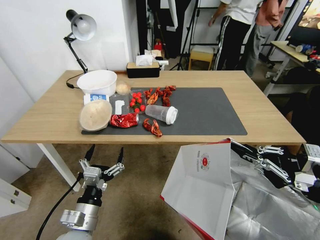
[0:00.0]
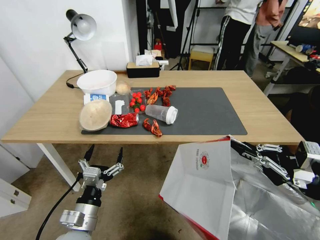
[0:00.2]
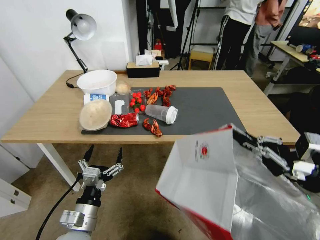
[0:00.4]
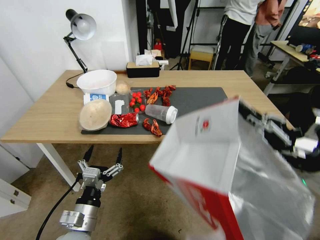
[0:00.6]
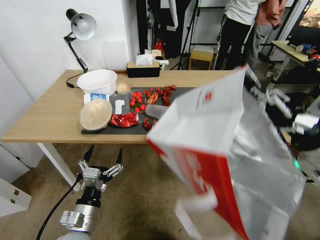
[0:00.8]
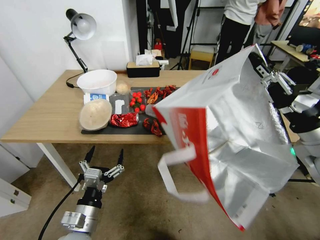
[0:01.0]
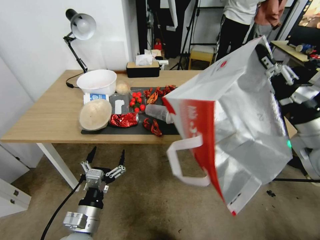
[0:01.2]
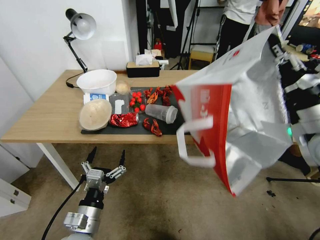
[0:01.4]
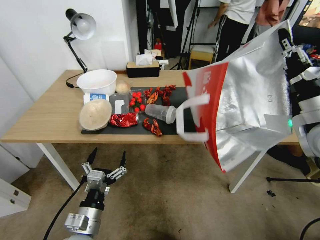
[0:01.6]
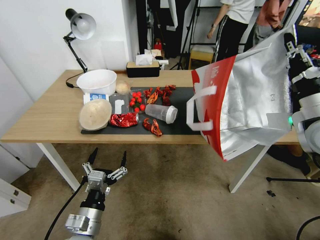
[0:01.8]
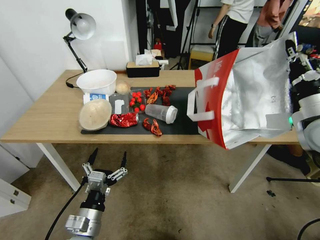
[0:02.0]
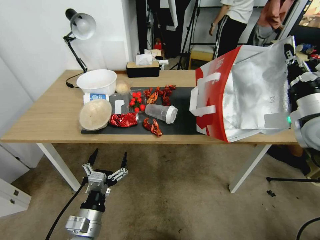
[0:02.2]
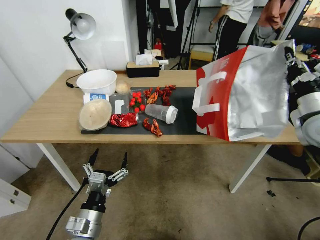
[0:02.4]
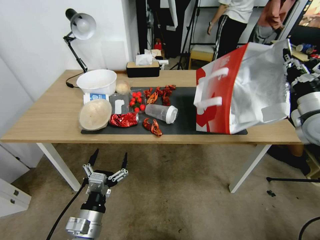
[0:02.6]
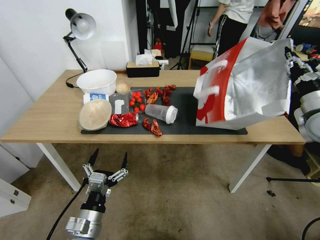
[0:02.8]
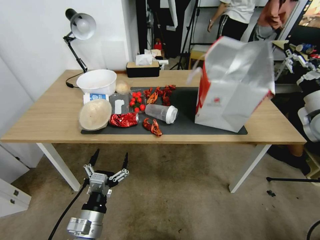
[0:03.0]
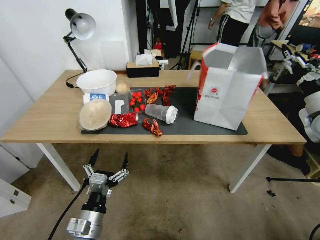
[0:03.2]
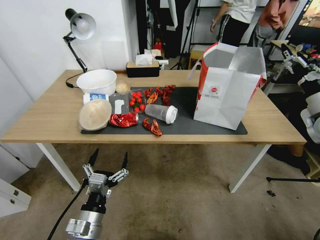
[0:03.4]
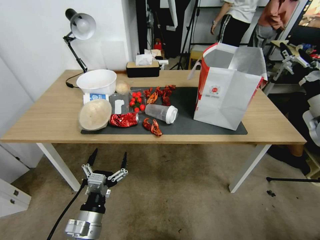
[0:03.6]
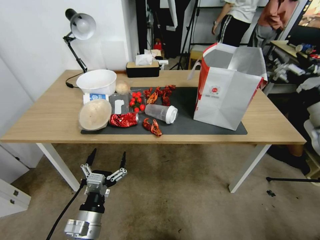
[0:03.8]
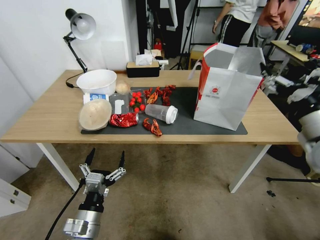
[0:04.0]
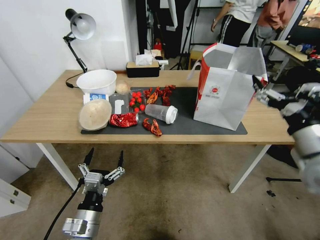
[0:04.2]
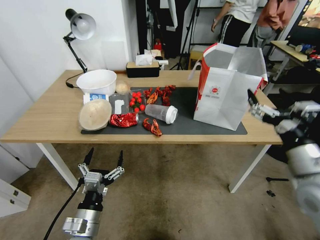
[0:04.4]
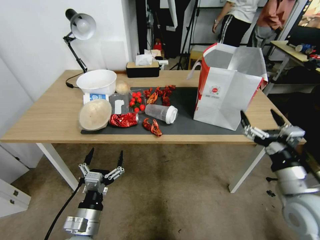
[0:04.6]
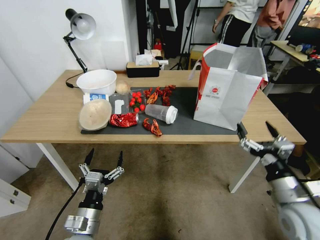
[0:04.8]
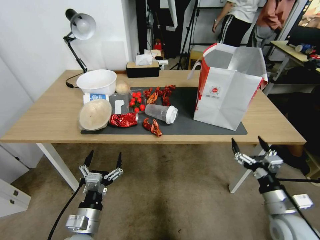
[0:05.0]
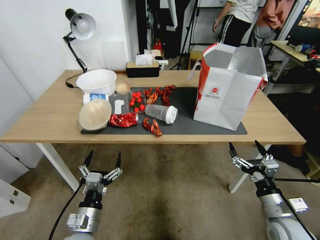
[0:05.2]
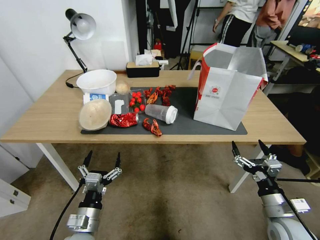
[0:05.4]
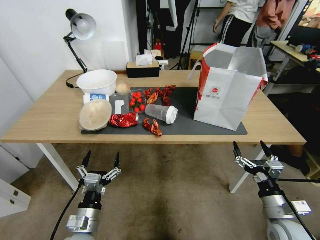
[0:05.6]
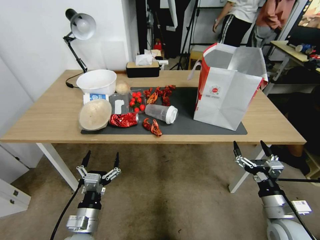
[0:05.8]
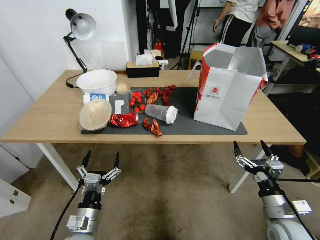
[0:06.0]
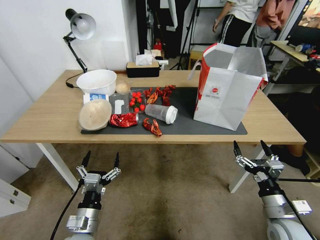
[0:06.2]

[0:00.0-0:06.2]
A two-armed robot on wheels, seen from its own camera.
Task of the whole recording: Pick up the food delivery bag from the floor and place it on the table.
0.0 to 1.6 s: The right gripper heads forward and upward, covering about 15 cm.
1.6 to 3.2 s: The right gripper is displaced to the right and forward by roughly 10 cm, and opens its fingers.
3.2 to 4.6 s: The right gripper travels backward, to the left and downward by some 25 cm.
4.6 to 6.2 s: The right gripper travels downward by about 15 cm.

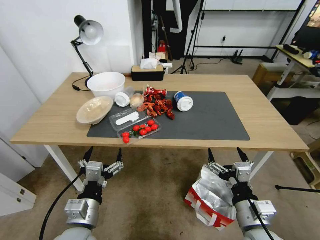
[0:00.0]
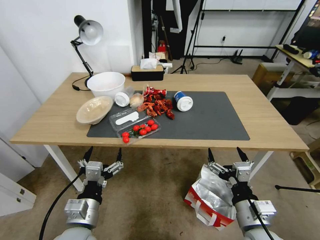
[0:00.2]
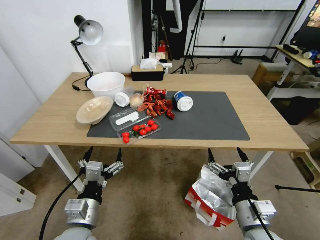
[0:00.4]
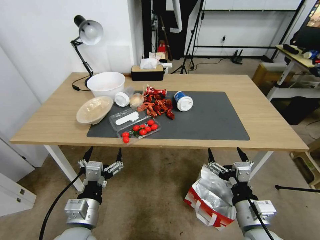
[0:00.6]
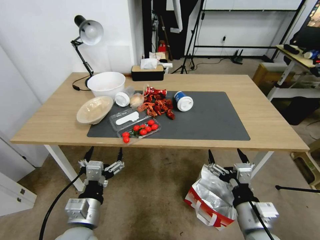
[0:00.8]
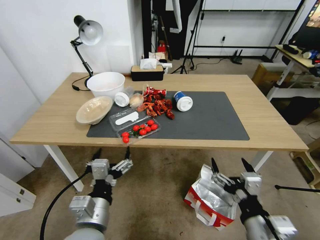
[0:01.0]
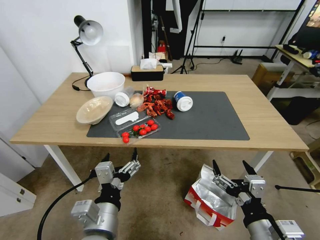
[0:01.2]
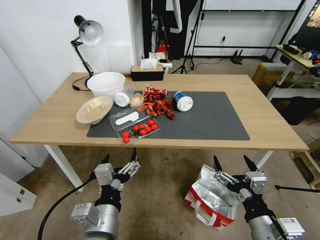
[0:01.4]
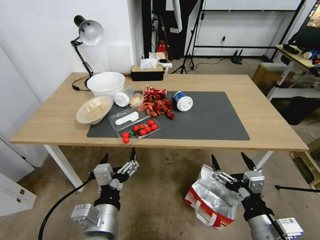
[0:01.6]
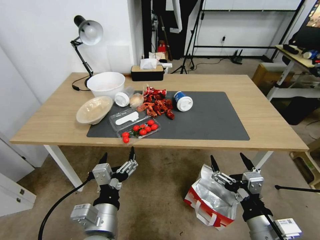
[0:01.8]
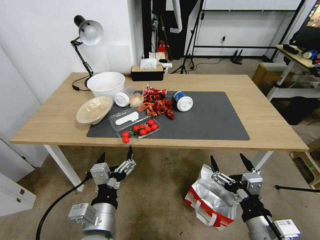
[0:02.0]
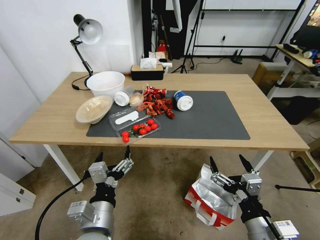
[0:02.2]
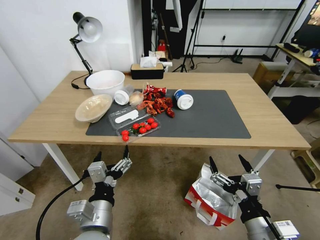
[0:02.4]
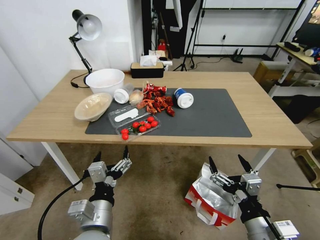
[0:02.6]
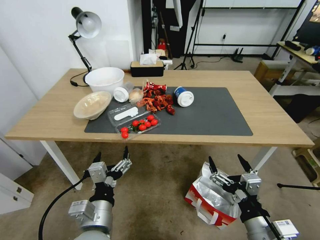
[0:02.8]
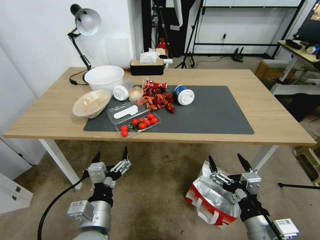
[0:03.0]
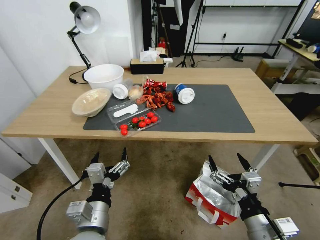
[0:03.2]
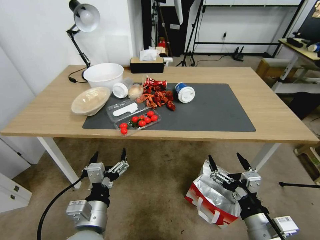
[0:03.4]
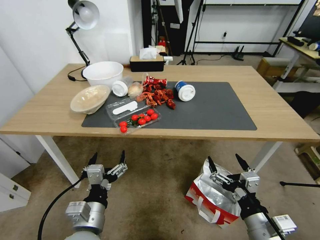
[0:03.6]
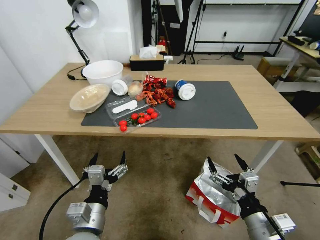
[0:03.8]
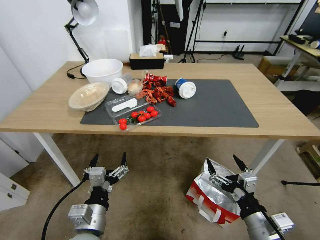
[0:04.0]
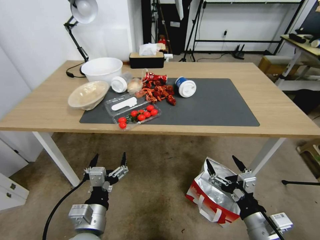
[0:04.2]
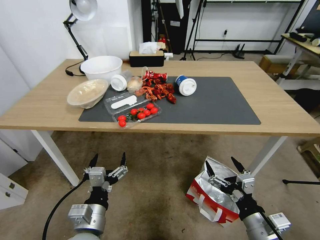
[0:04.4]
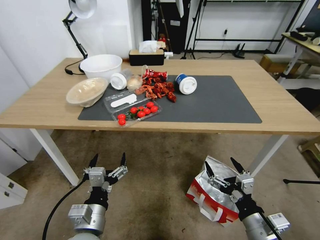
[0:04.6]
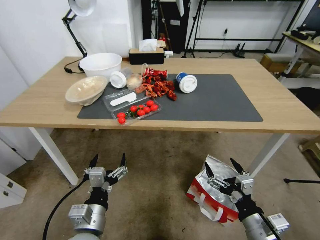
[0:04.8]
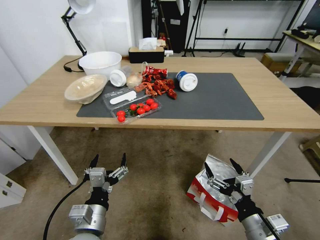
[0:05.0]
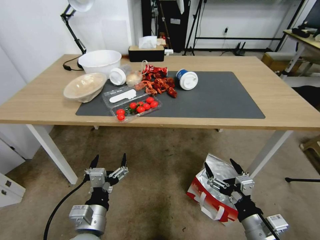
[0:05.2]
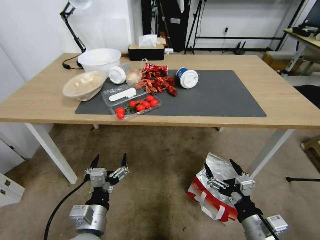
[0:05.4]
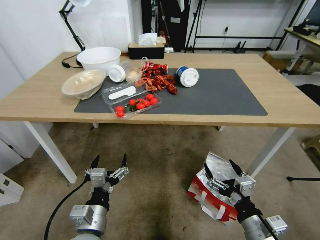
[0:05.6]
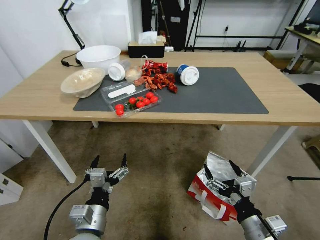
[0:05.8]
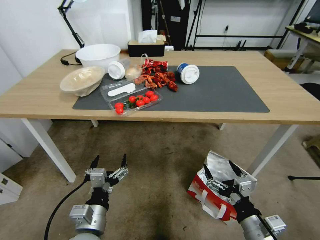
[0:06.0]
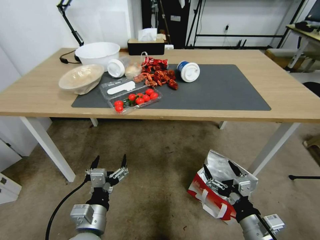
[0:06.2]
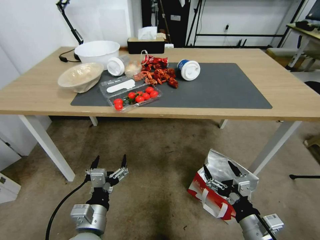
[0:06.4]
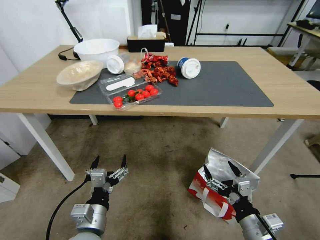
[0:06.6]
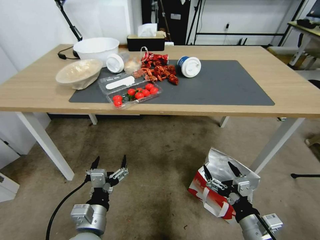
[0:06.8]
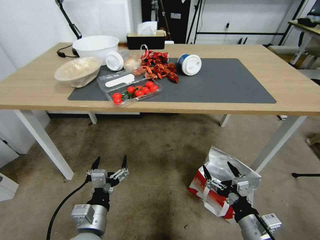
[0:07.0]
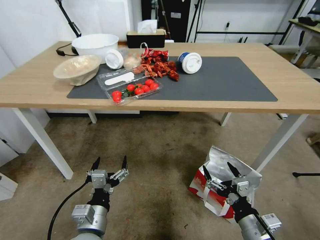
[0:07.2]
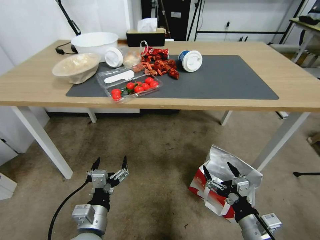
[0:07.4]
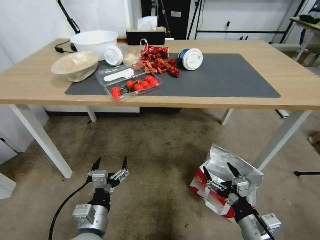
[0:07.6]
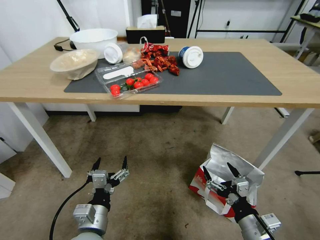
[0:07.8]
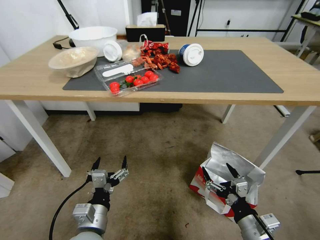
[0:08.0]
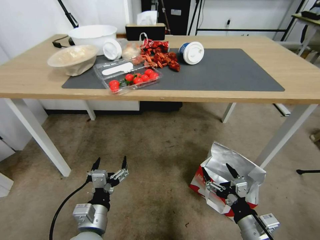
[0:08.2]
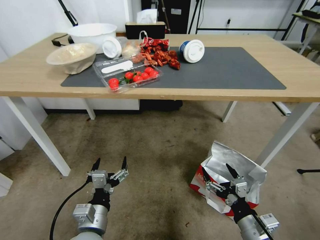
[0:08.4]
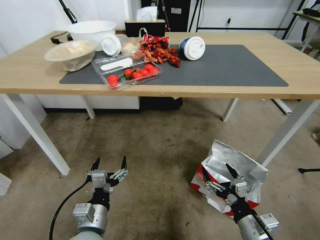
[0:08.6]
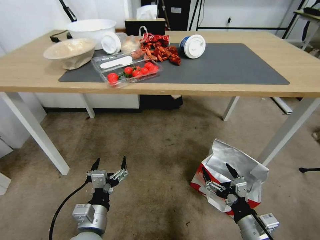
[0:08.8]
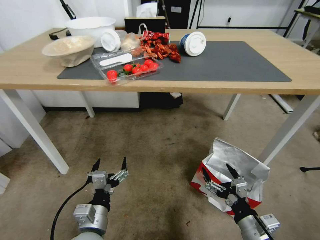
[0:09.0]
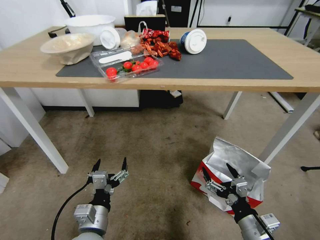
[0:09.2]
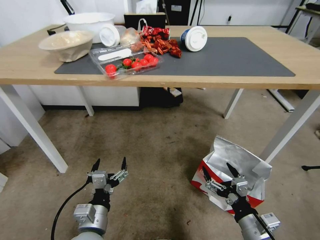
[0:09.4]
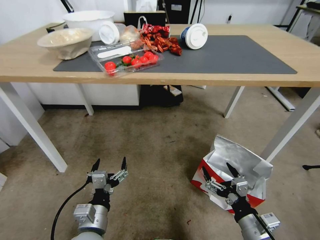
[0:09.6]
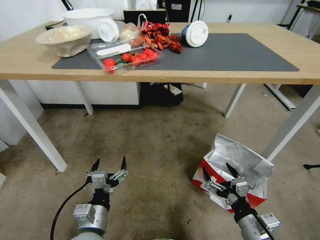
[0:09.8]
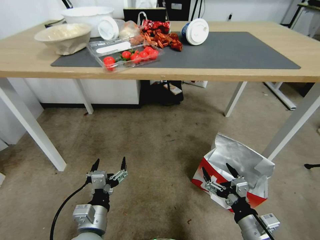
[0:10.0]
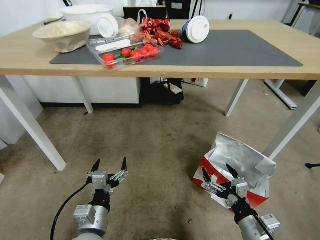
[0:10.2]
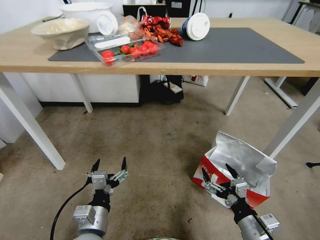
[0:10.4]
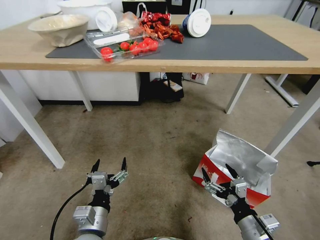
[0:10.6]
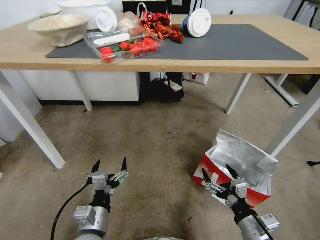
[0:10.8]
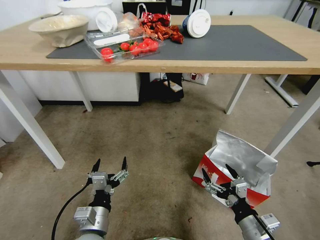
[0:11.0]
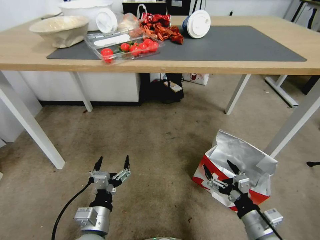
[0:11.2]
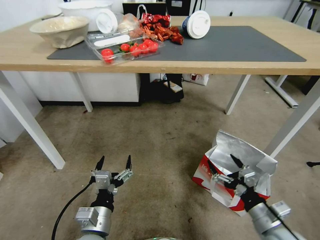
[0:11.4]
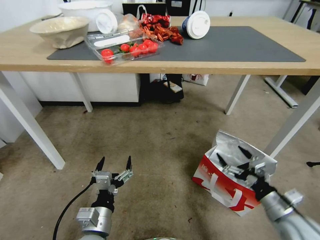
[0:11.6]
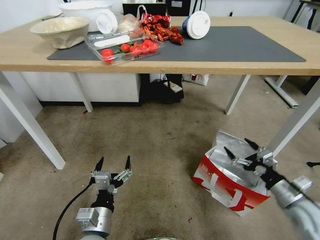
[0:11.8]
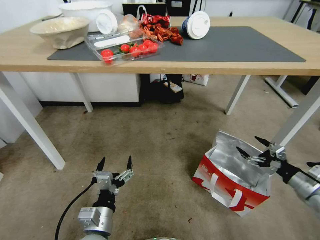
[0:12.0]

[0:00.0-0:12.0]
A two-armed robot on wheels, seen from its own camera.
Task of the whole recording: Pick up the food delivery bag from the floor and place it on the table.
10.4 to 12.0 s: The right gripper shifts approximately 25 cm to the right and forward.

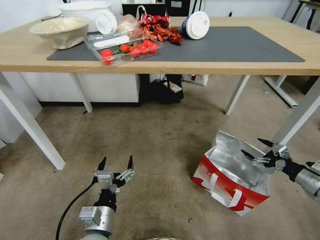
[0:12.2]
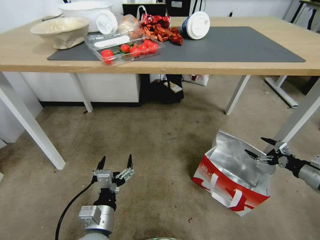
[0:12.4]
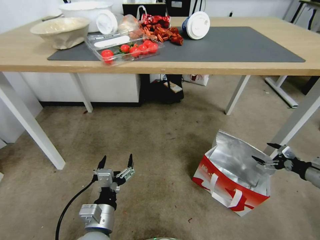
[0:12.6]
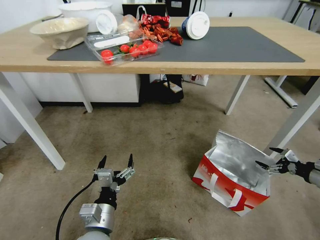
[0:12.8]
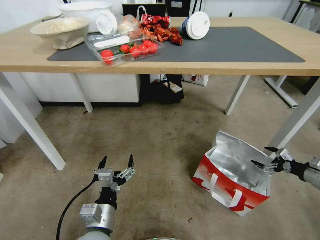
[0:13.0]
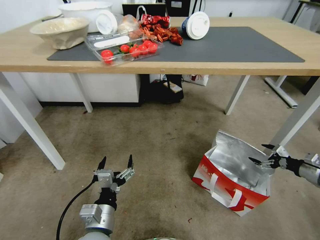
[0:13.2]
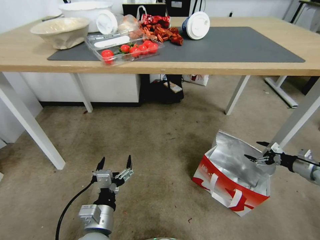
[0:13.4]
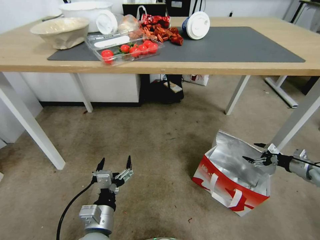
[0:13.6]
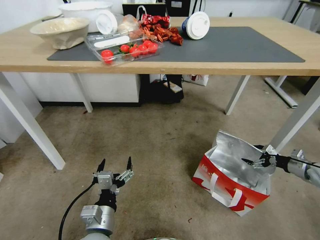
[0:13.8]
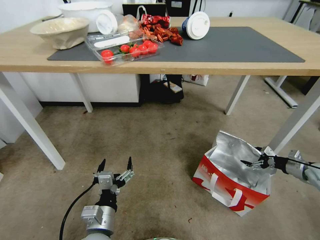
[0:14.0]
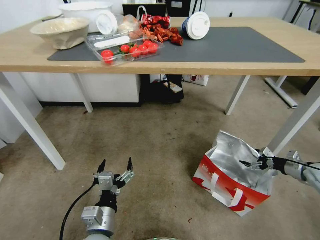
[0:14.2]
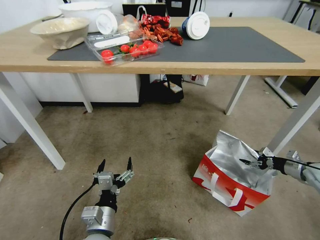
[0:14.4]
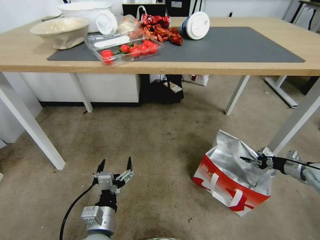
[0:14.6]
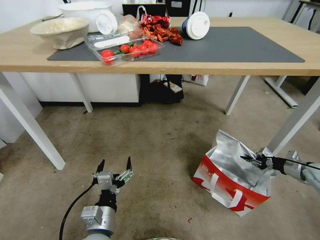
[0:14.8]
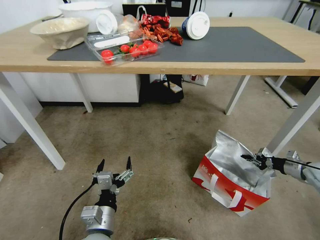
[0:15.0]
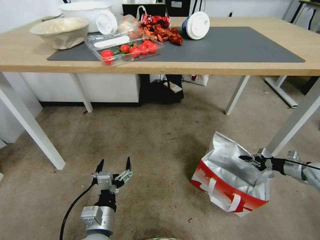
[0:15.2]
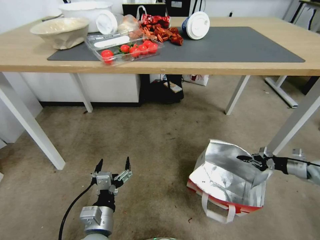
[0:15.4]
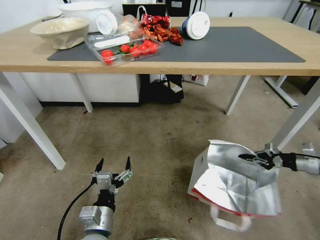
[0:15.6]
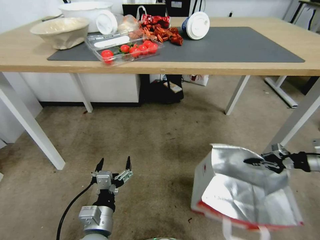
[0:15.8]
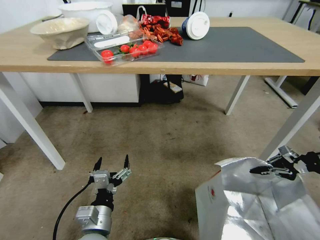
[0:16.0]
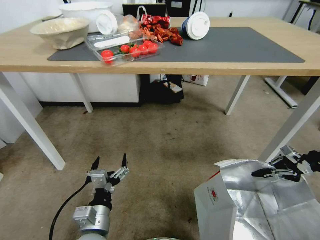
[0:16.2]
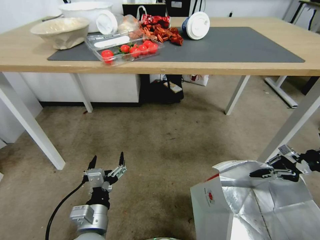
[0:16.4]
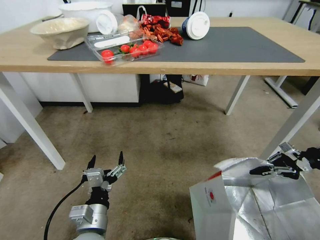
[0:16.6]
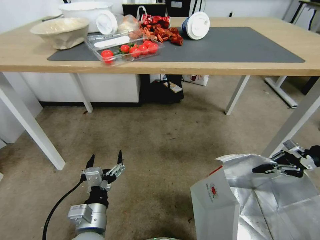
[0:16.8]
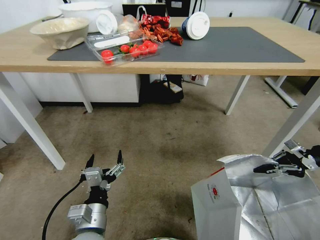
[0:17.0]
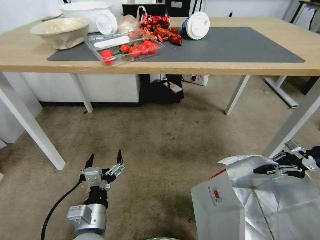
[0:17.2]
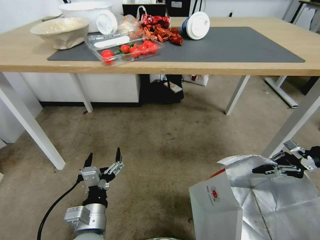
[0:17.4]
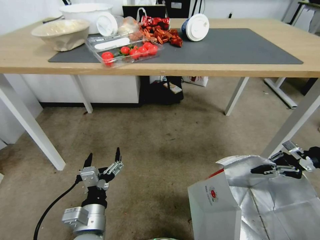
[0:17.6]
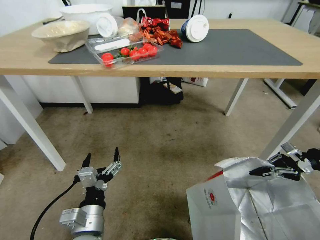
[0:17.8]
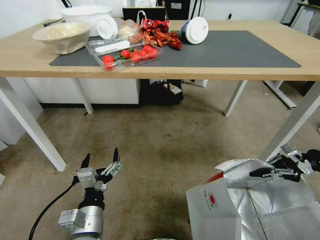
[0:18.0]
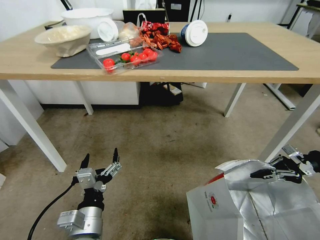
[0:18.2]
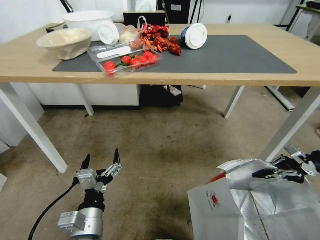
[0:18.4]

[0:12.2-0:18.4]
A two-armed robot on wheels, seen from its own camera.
Task of the whole recording: Pick up the food delivery bag from the floor and place it on the table.
12.2 to 13.8 s: The right gripper heads forward, to the right and downward, covering some 15 cm.
13.8 to 15.4 s: The right gripper closes its fingers.
15.4 to 16.8 s: The right gripper travels upward by approximately 15 cm.
